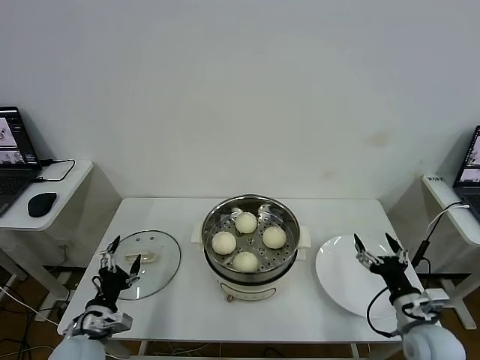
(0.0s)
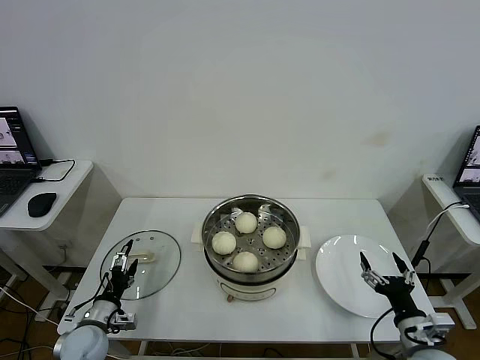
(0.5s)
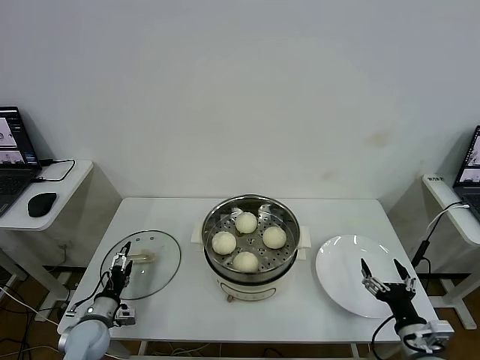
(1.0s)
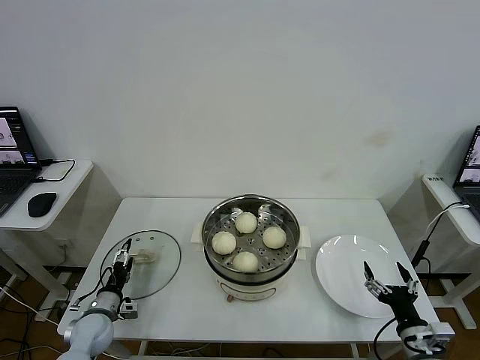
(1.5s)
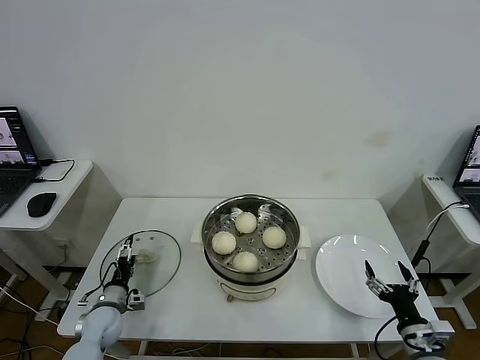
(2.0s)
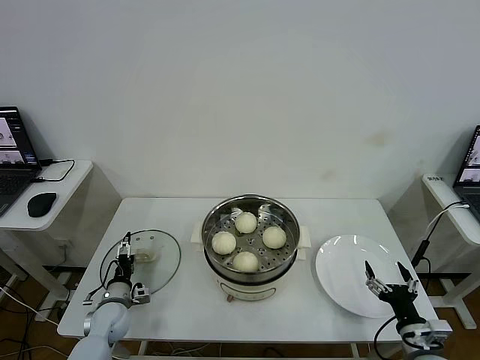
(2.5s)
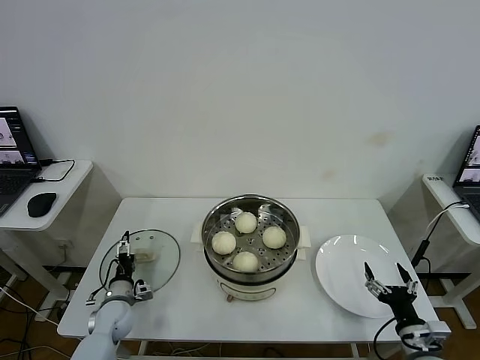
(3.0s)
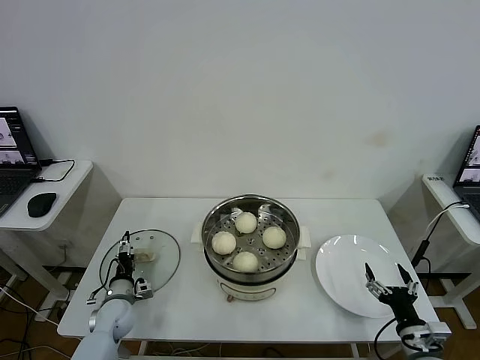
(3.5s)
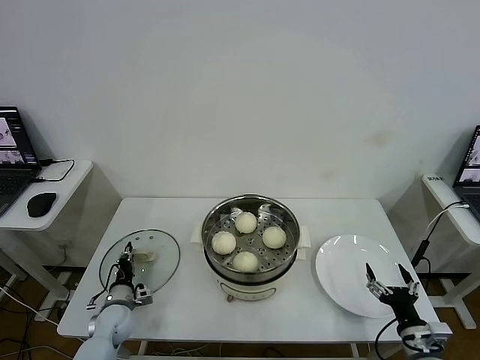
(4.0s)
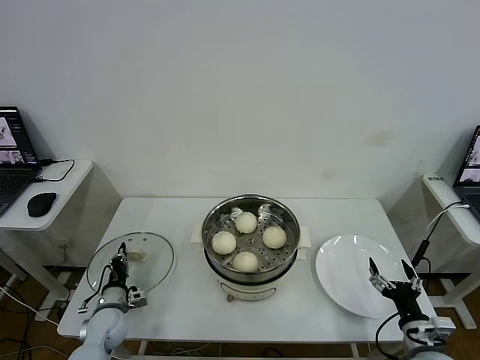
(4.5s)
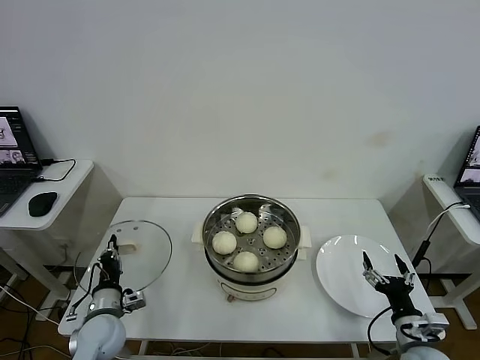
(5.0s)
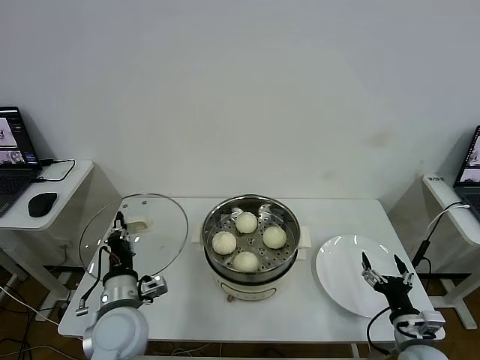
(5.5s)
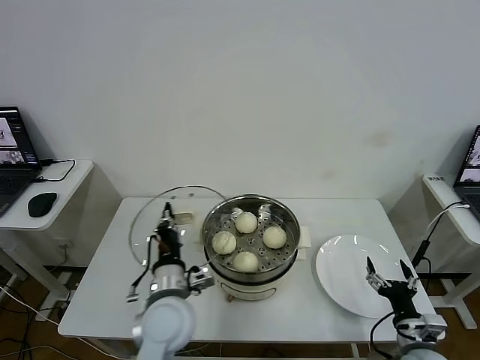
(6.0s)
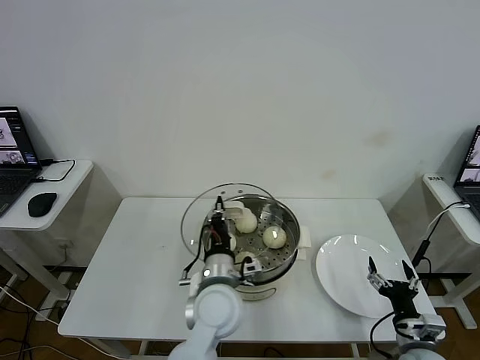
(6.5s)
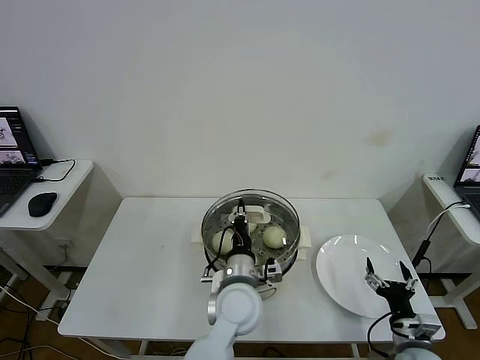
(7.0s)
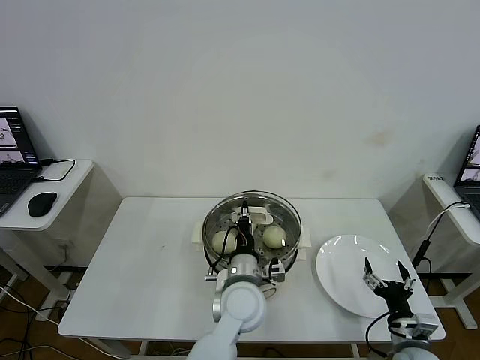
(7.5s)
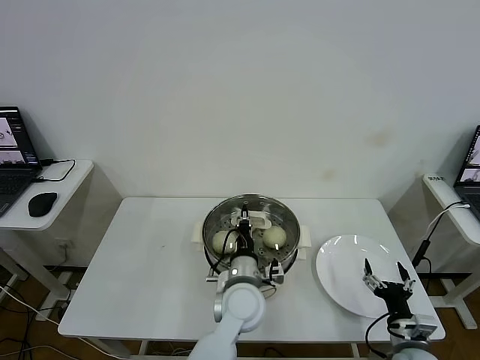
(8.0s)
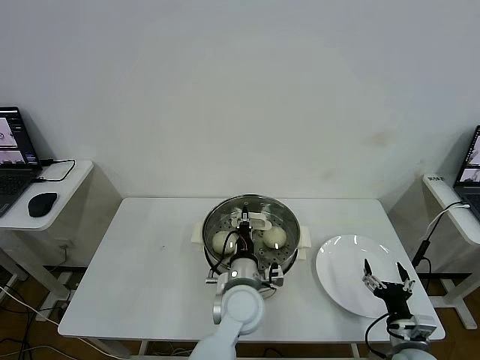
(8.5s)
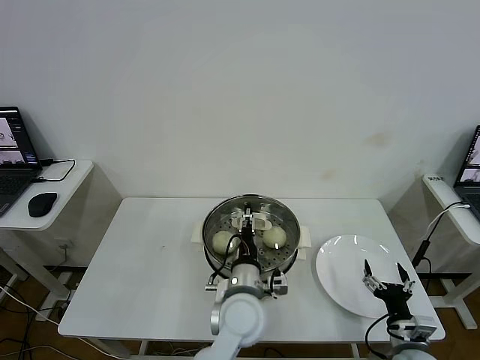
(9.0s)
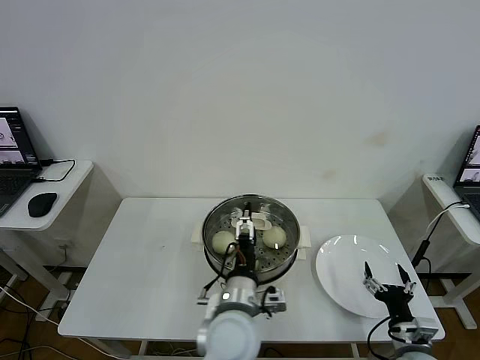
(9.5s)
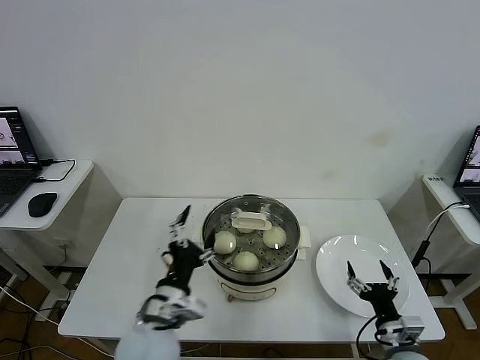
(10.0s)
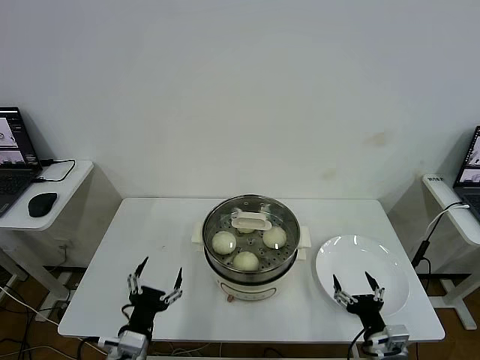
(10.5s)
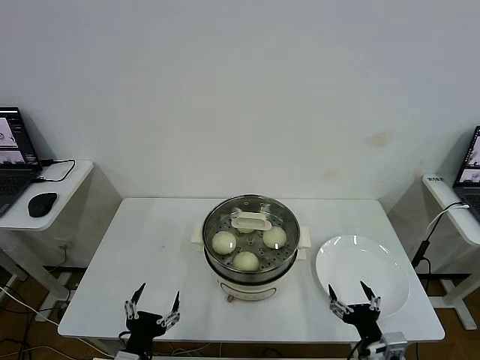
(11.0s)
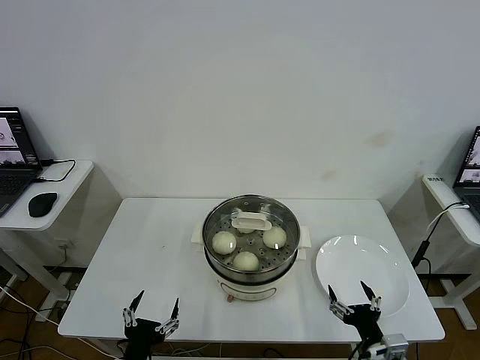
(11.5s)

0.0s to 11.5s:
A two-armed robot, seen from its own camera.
Step, 0.0s to 4.0s: Grasp the pot lid with left gripper.
Step, 4.5s to 8.5s: Place the pot lid on the steamer with left gripper.
0.0s to 2.0s: The left gripper travels forward and downward by some 15 cm. The right gripper moves backward, roughly 5 cm.
2.0s to 4.0s: The left gripper closes its fingers.
4.0s to 6.0s: The left gripper travels upward and to the right by some 30 cm.
6.0s to 7.5s: The left gripper shifts about 15 cm to the right.
7.5s to 9.5s: The left gripper travels backward by about 5 cm, and opens.
9.5s to 11.5s: The left gripper heads to the left and backward, covering some 25 cm. Meanwhile the right gripper goes some 5 cm to the left.
